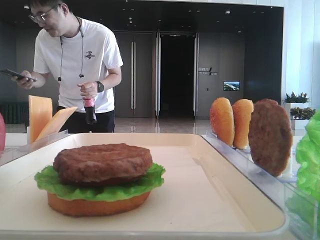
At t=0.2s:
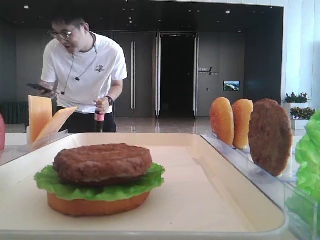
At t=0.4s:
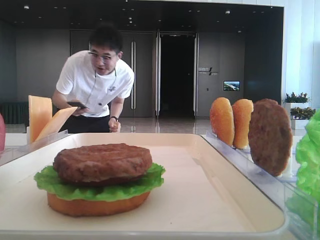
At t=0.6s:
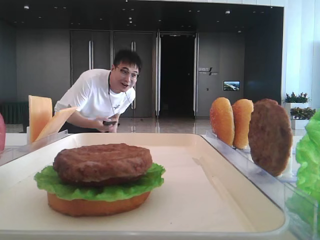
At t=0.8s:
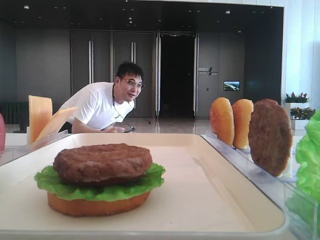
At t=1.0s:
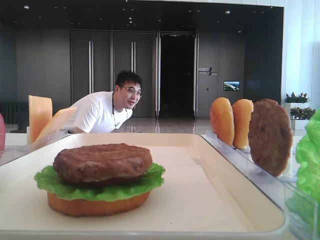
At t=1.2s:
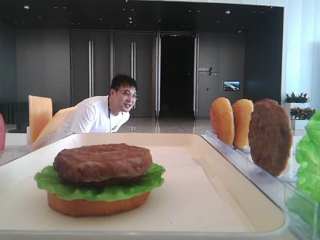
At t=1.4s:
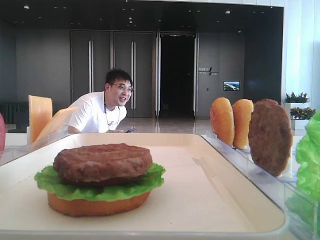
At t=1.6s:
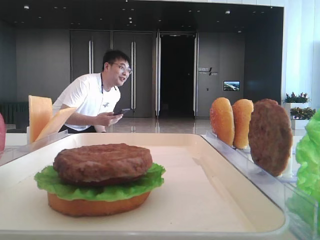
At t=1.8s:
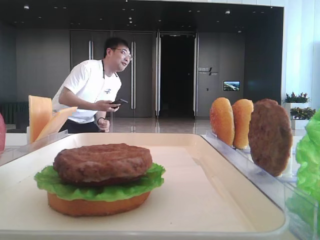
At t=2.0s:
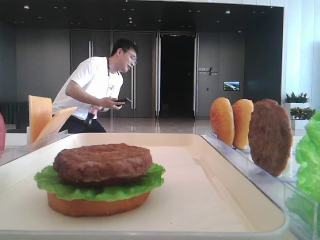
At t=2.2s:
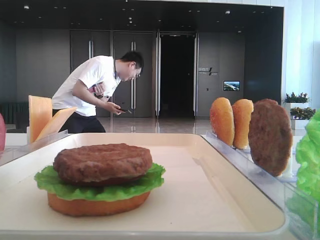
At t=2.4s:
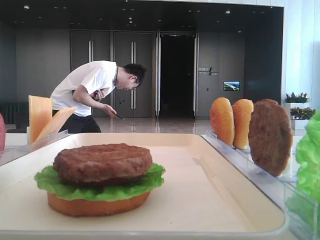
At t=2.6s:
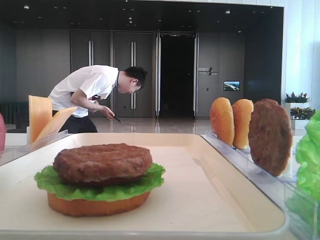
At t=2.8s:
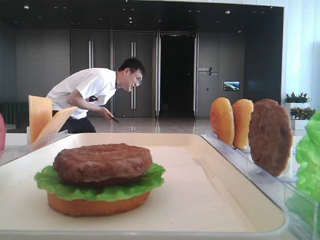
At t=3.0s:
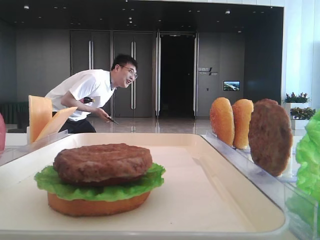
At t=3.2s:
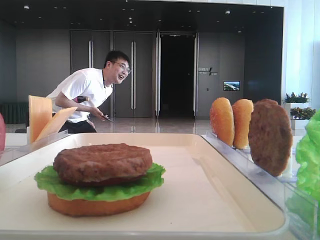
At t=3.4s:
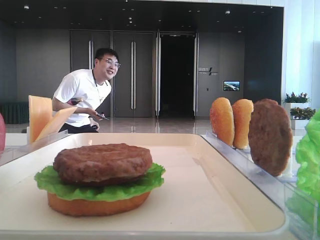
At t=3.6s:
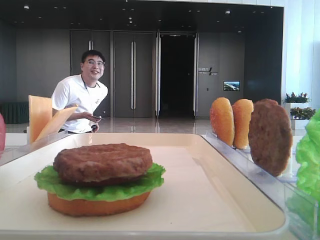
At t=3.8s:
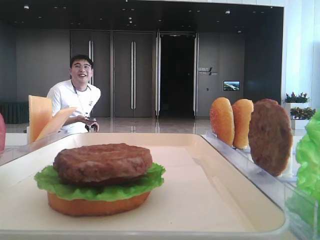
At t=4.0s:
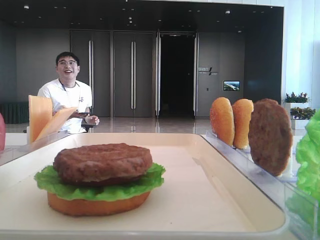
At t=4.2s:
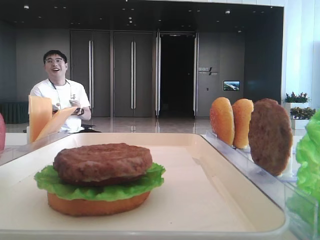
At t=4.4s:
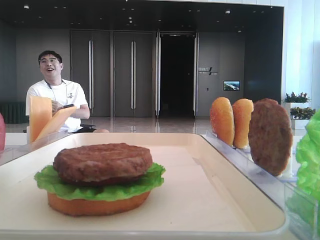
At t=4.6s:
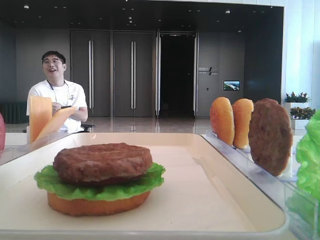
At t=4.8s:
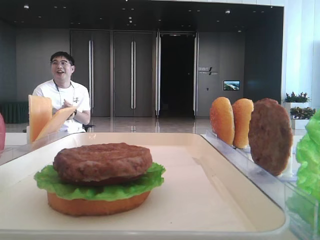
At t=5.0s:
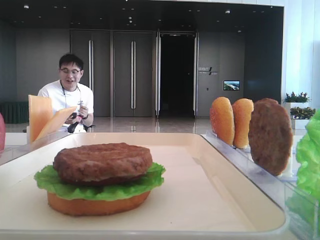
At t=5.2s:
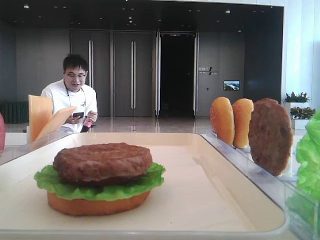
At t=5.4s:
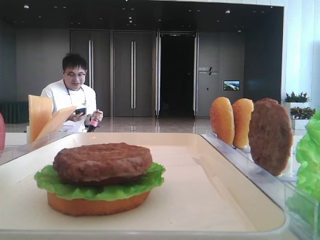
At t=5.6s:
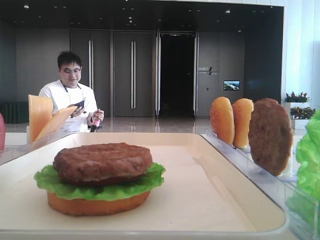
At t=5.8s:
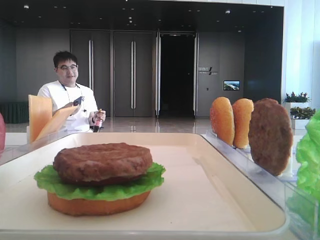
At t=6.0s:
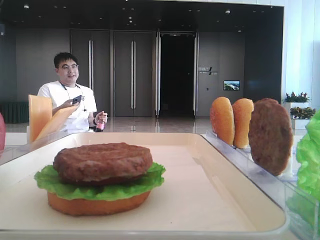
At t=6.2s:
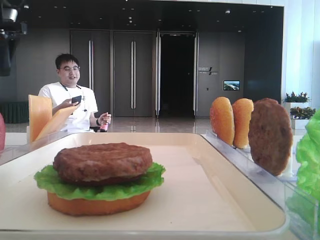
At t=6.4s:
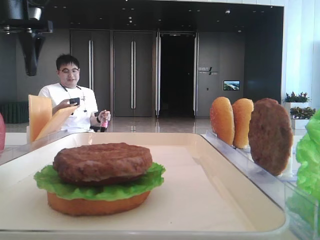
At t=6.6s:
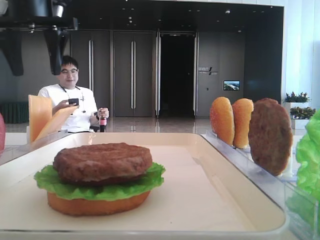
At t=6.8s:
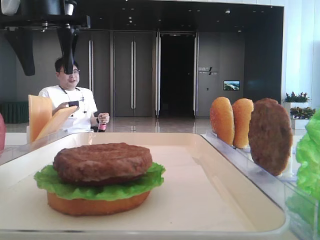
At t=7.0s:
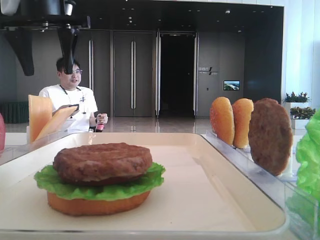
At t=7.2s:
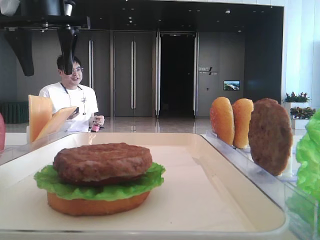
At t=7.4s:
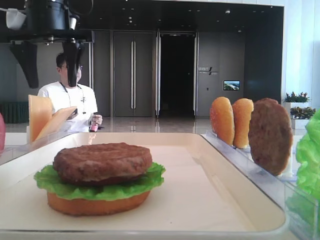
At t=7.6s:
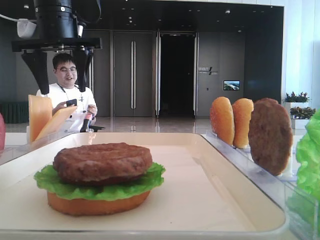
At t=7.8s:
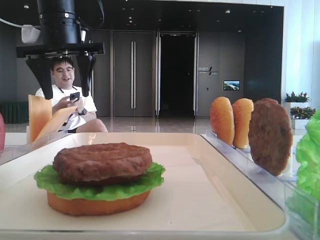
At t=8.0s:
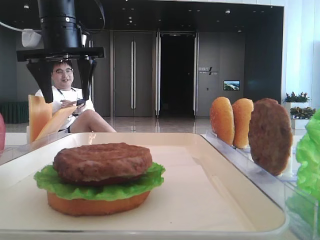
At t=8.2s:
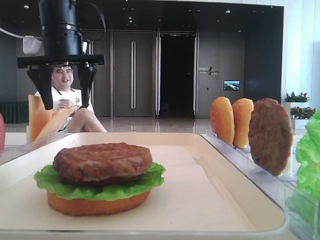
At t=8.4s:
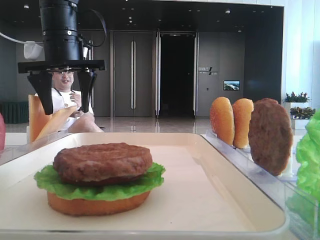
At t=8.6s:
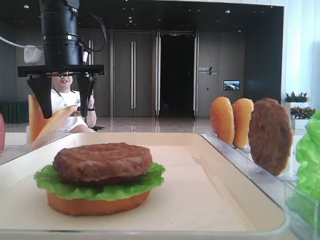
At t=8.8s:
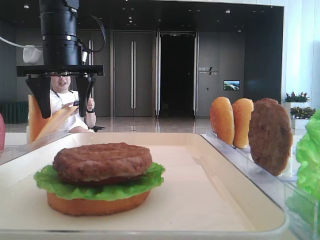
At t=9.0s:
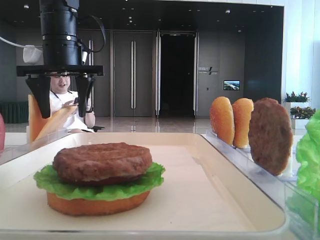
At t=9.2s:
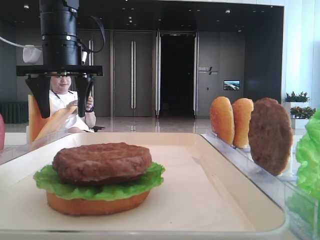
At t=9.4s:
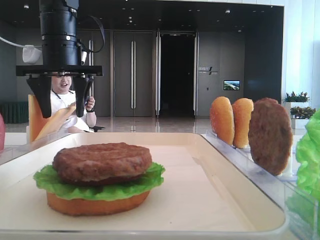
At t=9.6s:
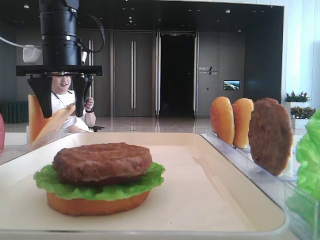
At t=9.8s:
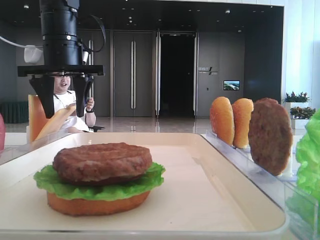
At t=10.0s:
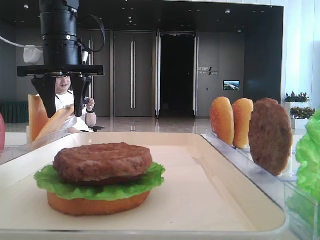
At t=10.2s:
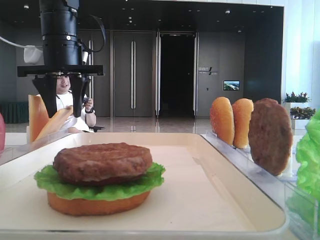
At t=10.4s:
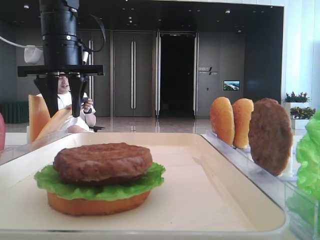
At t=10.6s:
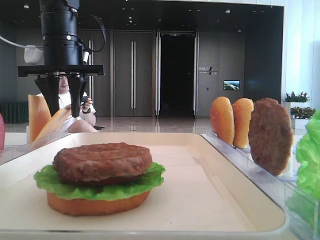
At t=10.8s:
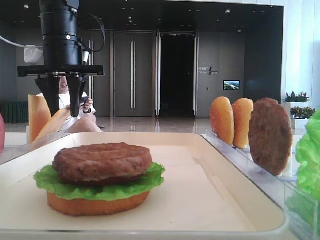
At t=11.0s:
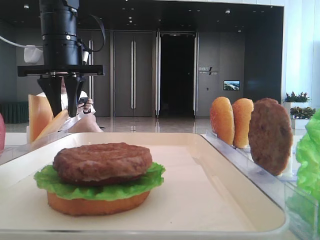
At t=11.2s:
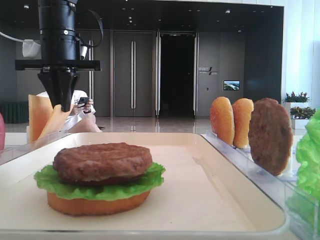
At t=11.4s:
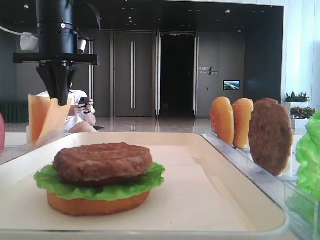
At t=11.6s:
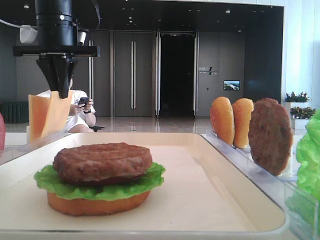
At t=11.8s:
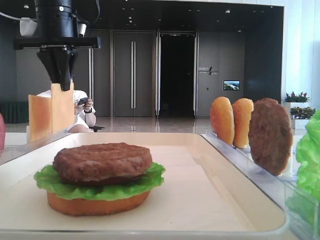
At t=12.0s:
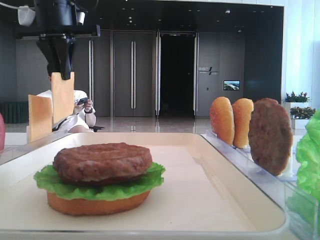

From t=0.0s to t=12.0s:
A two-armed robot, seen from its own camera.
Step, from t=0.0s to t=11.2s: Pick up the cheese slice with the left hand.
From t=1.6s to t=3.0s: The two grippers keep their place.
From t=3.0s to t=4.4s: The left gripper is displaced forward by some 25 cm.
From t=4.4s to t=6.0s: The left gripper heads forward, covering some 20 cm.
From t=6.0s to t=7.6s: The left gripper shifts about 15 cm to the right.
From t=7.6s to t=9.0s: There are only small adjustments of the grippers.
From t=9.0s to t=10.4s: The left gripper closes its fingers.
From t=10.4s to t=12.0s: The left gripper is displaced upward by roughly 5 cm, and closes its fingers.

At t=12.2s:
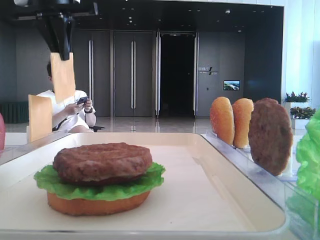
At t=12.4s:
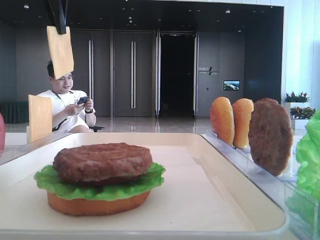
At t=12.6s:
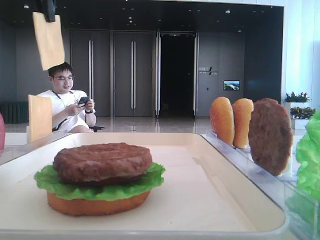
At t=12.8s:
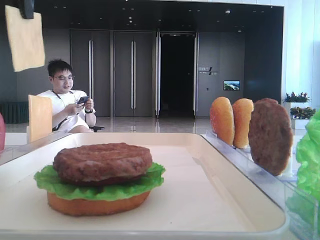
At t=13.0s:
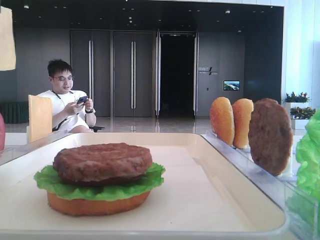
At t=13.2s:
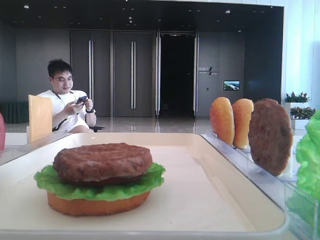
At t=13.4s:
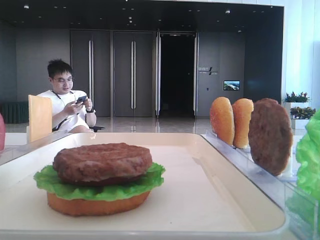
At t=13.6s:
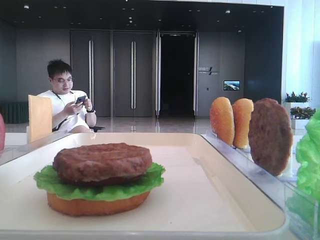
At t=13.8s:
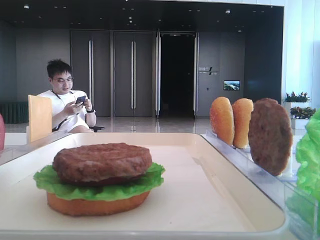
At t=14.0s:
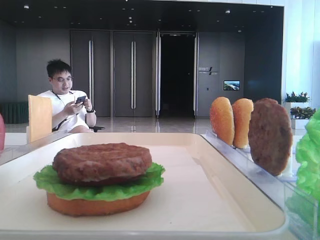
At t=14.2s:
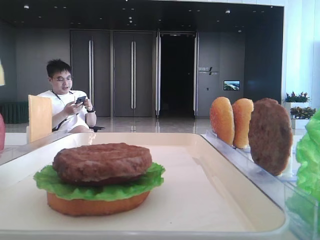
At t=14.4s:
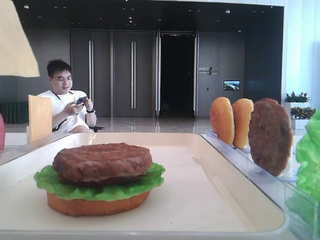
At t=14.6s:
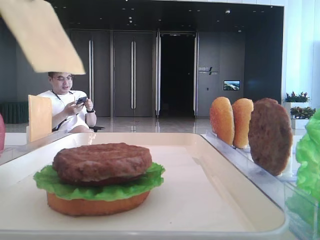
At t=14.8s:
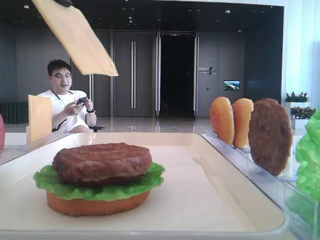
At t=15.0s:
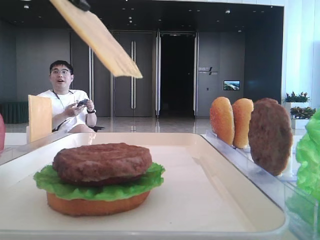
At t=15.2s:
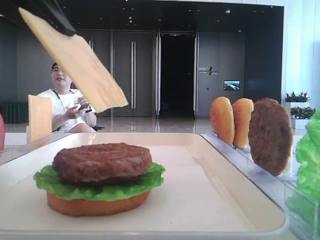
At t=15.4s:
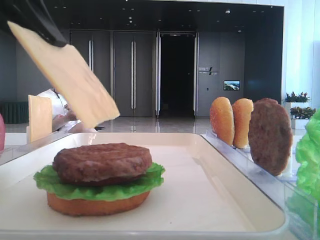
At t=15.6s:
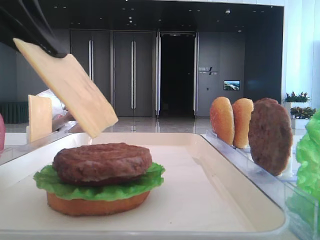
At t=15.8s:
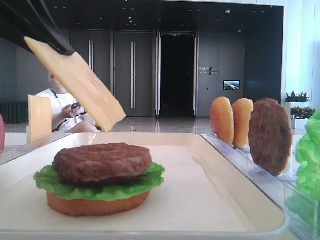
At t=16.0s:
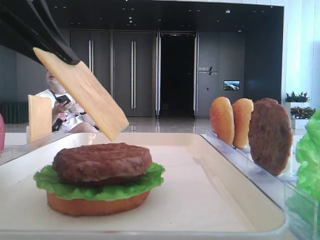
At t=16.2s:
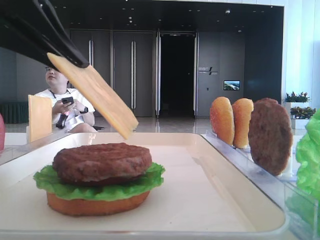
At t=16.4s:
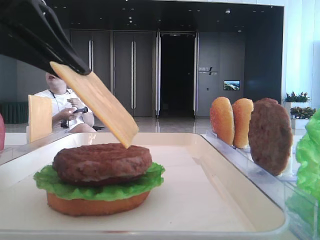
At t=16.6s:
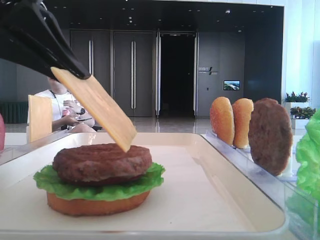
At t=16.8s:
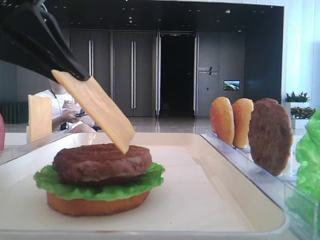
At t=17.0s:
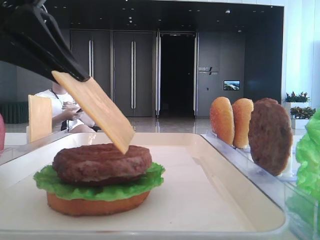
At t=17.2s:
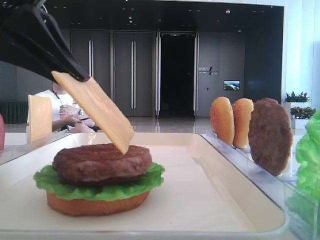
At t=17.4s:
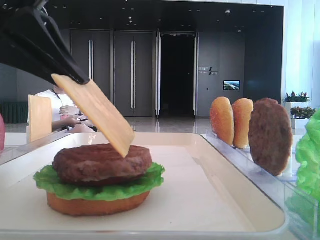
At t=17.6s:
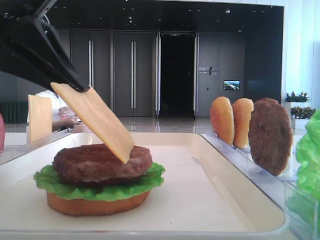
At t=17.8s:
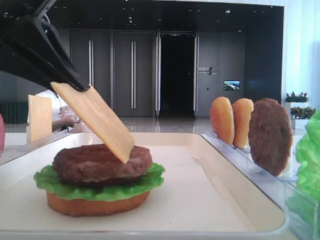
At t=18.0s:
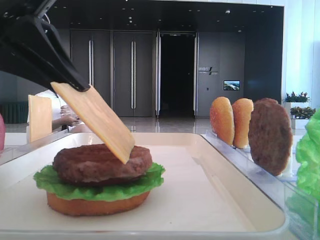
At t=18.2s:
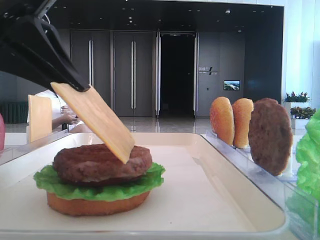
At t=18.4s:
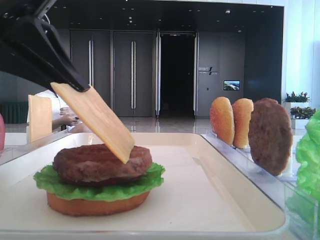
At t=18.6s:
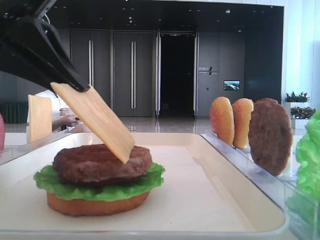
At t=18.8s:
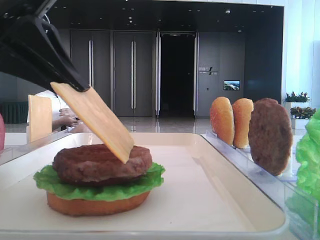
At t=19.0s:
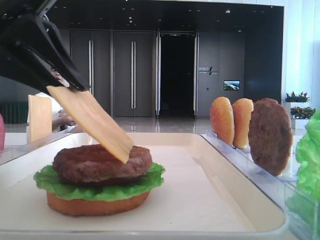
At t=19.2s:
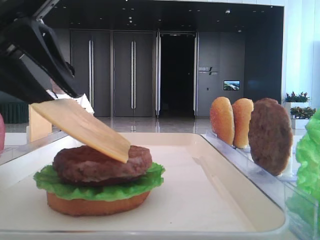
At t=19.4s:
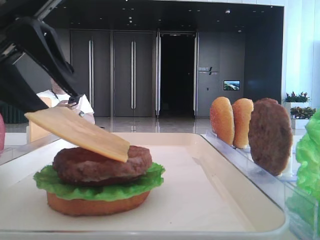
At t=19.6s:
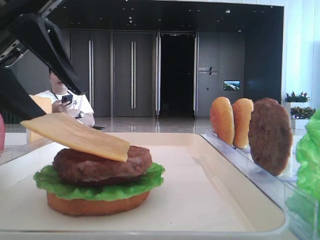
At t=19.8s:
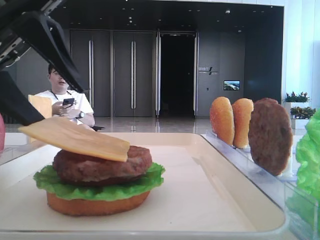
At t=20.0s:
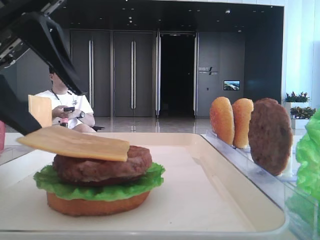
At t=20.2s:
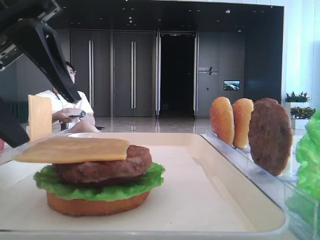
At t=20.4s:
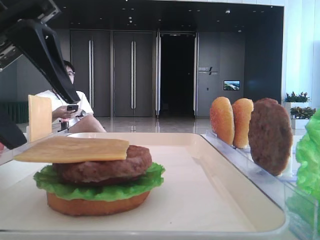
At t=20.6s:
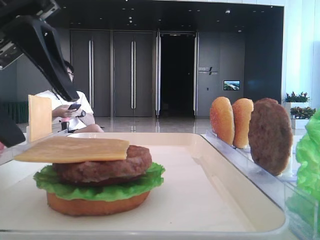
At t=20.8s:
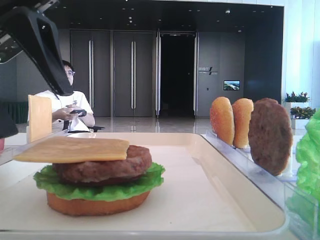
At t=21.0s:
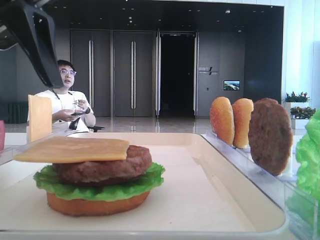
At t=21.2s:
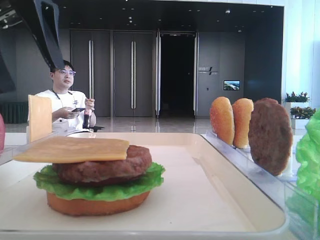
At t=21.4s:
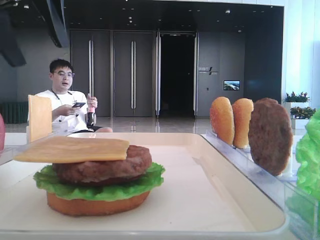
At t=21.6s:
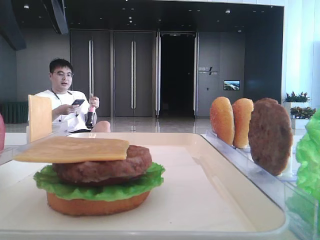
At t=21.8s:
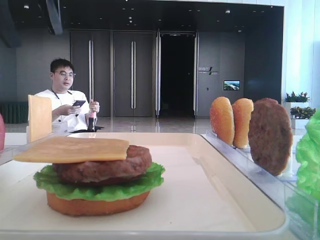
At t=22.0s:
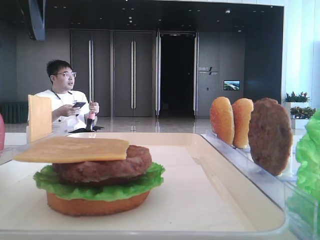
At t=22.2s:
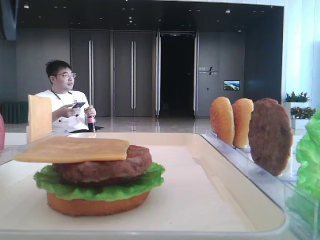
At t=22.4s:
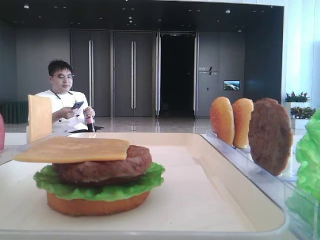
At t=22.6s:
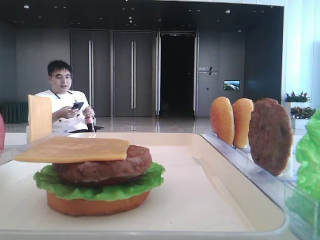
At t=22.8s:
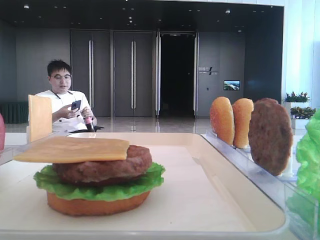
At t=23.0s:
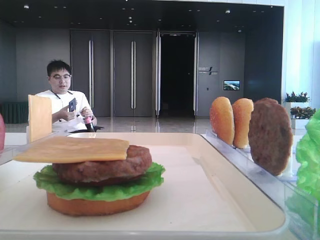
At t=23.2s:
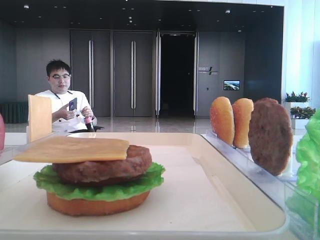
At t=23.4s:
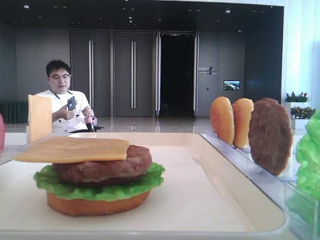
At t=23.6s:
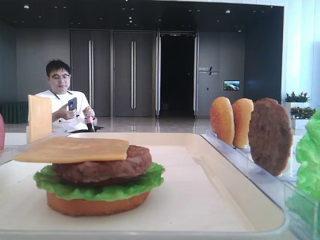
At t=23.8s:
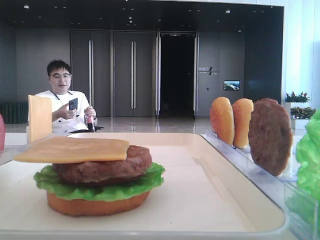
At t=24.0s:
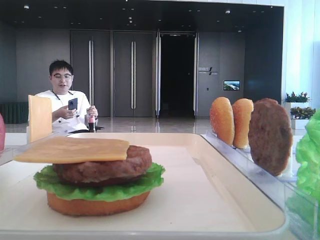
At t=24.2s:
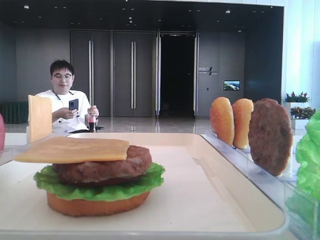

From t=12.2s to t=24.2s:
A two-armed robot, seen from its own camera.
Step, from t=12.2s to t=20.0s: Place the cheese slice on the patty with the left hand.
From t=12.2s to t=13.8s: The left gripper heads backward, covering roughly 20 cm.
From t=13.8s to t=15.2s: The left gripper goes some 10 cm downward and to the right.
From t=15.2s to t=16.6s: There are only small adjustments of the grippers.
From t=16.6s to t=18.2s: Both grippers stay put.
From t=18.2s to t=19.8s: The left gripper opens its fingers.
From t=19.8s to t=21.2s: The left gripper goes some 5 cm upward.
From t=21.2s to t=22.6s: The left gripper travels to the left and upward by roughly 15 cm.
From t=22.6s to t=24.2s: The left gripper shifts some 20 cm backward and upward.
